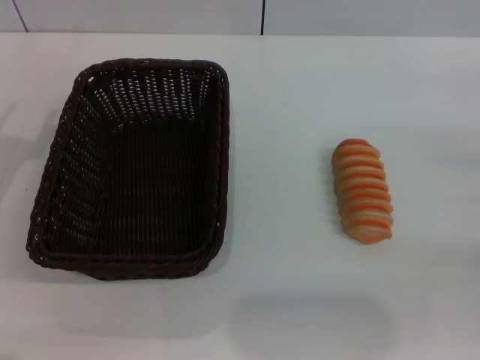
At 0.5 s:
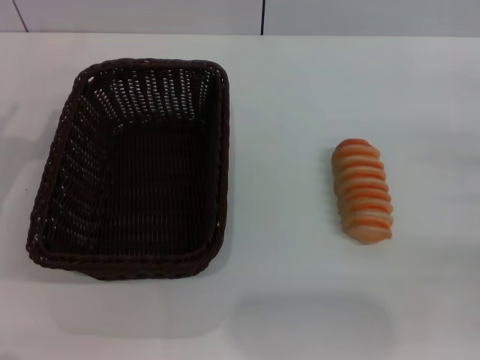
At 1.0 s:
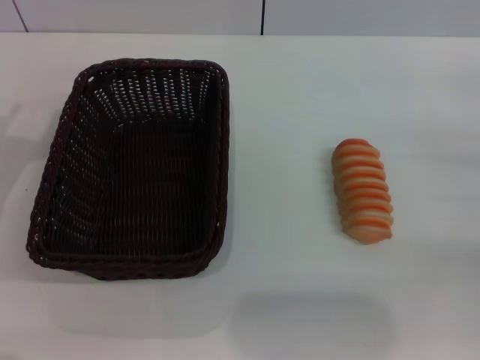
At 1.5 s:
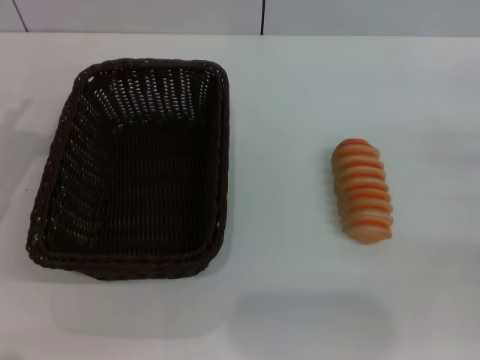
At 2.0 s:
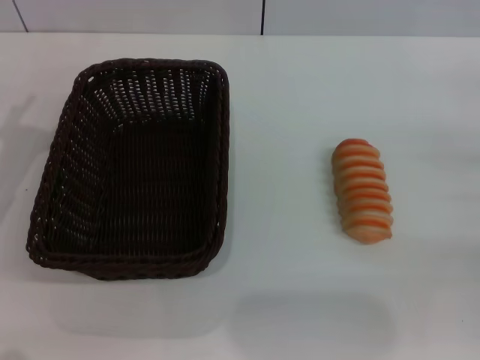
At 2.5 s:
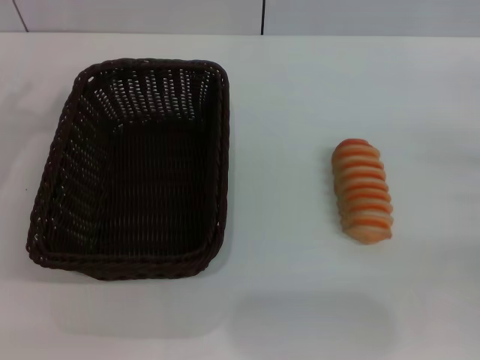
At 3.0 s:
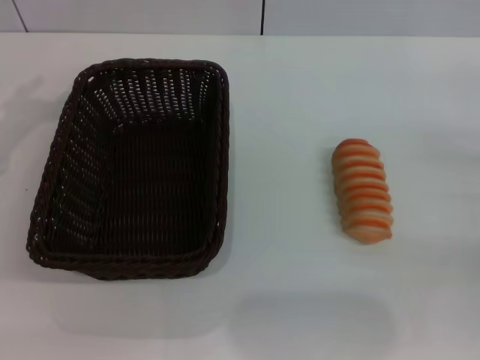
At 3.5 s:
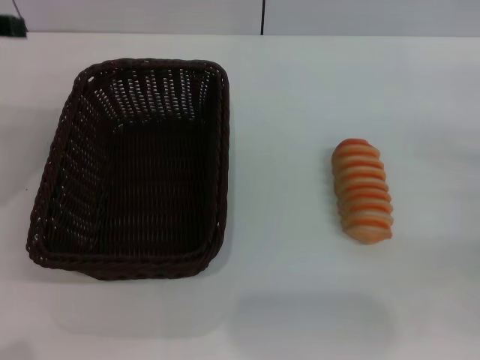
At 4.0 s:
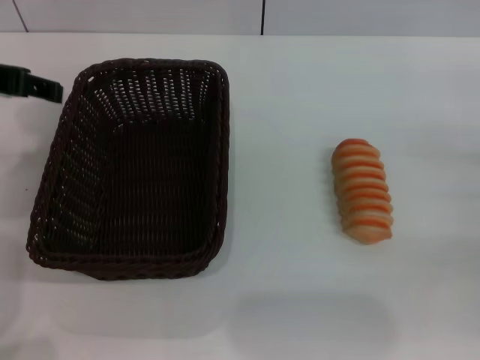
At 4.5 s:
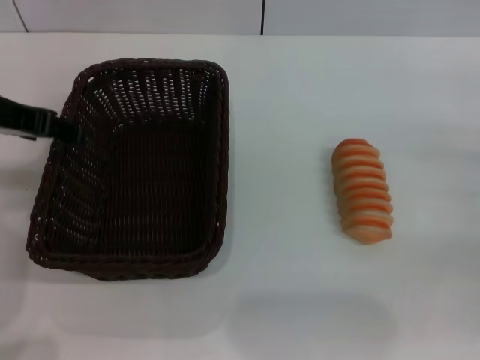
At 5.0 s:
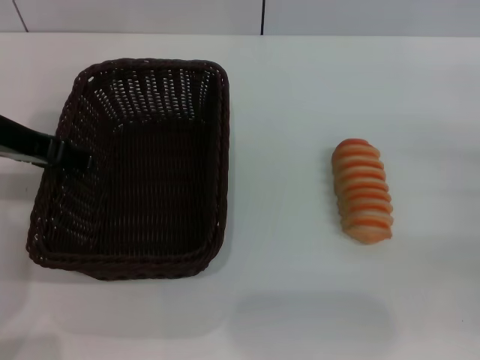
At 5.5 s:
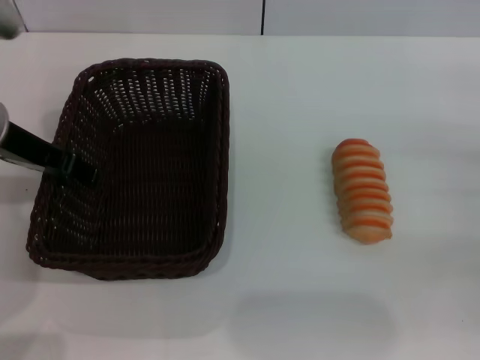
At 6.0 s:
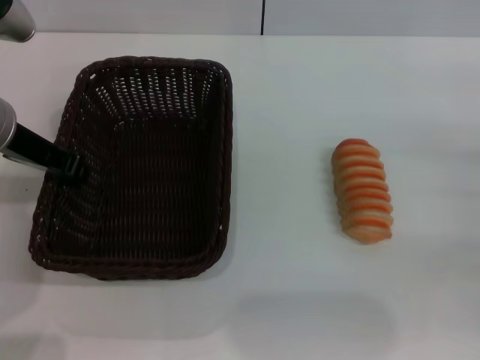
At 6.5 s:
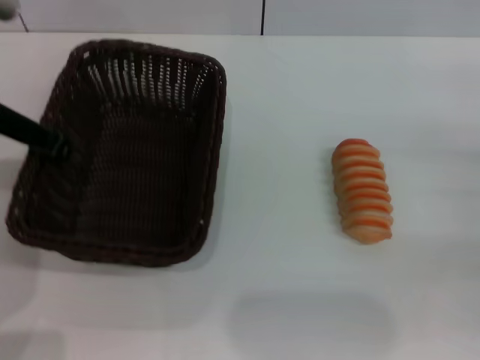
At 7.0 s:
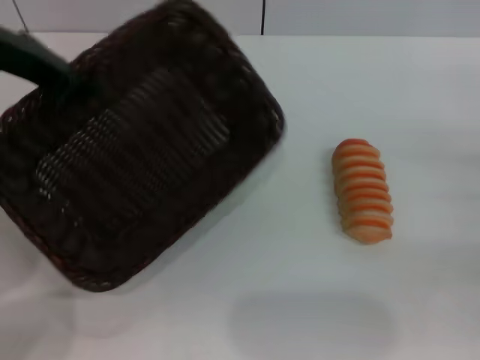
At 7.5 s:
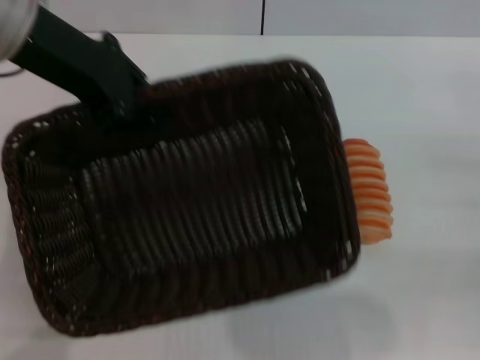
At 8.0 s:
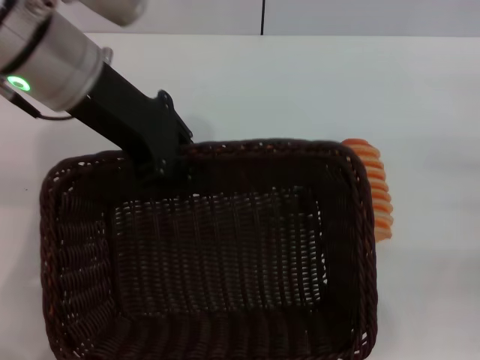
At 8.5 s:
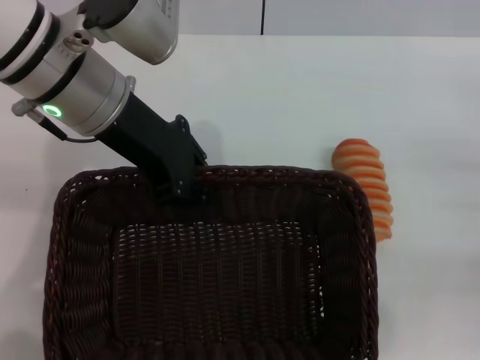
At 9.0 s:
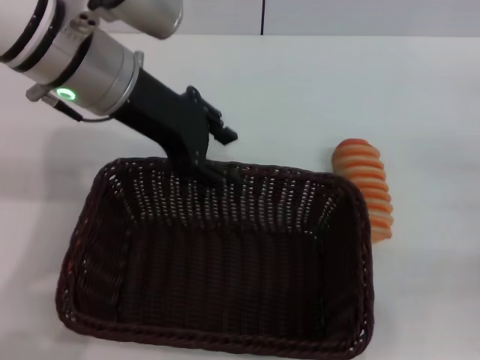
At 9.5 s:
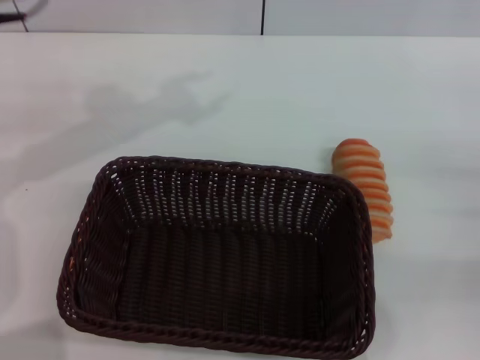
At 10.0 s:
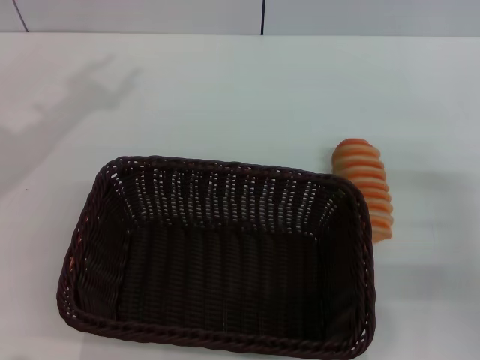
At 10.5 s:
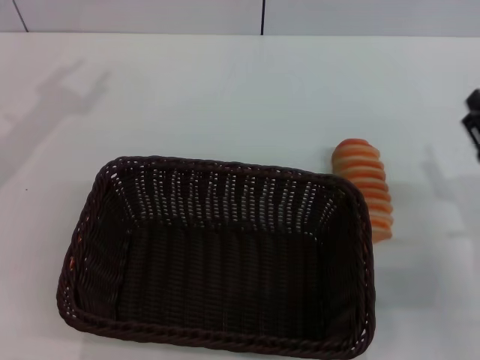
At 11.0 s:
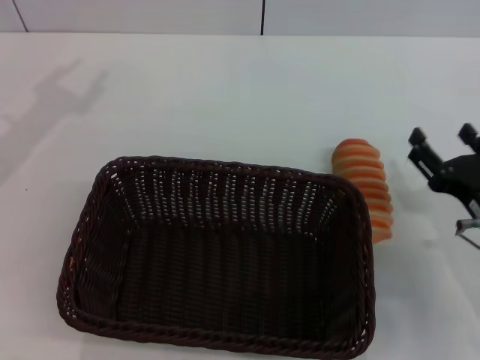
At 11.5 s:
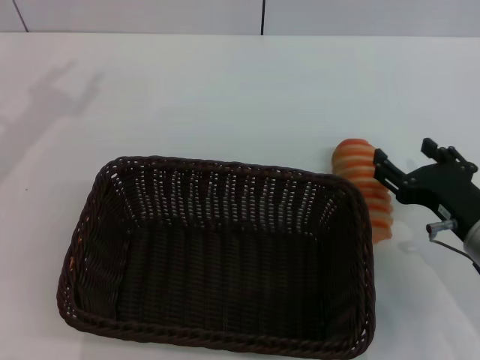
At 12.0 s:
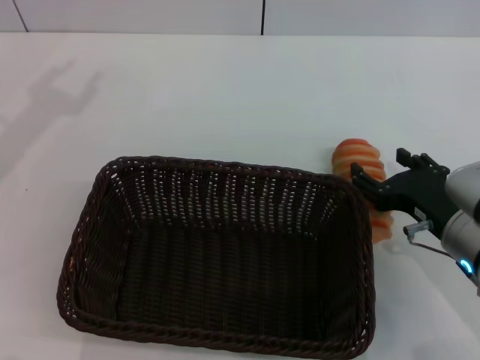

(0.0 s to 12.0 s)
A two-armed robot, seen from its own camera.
Step, 0.0 s - 6.0 s: Grasp the basket with the left gripper.
Step, 6.5 s - 9.0 s: Place the basket in the center of the table with the left gripper.
2.0 s - 4.0 s: The left gripper travels upward by roughly 15 cm.
4.0 s - 6.0 s: The left gripper travels downward by some 5 cm, and closes up.
6.0 s - 8.0 s: The left gripper travels to the right and upward by some 10 cm.
8.0 s - 10.0 s: The left gripper is displaced to the left by some 15 cm, and opens. The right gripper travels to the left by roughly 5 cm.
10.0 s - 12.0 s: The right gripper is displaced to the left by some 10 cm.

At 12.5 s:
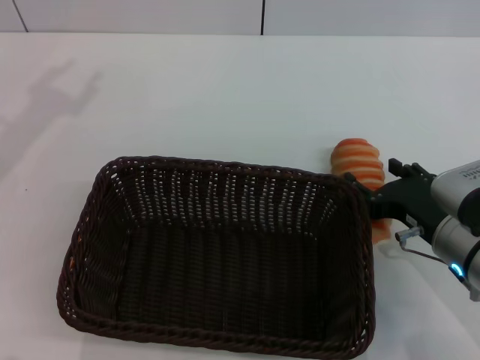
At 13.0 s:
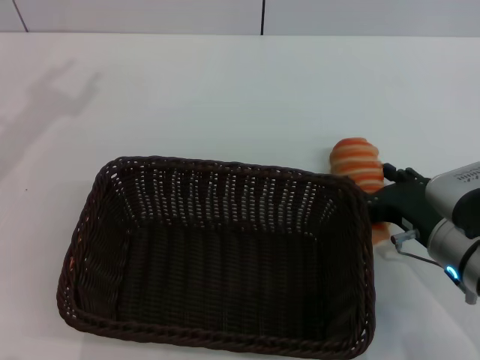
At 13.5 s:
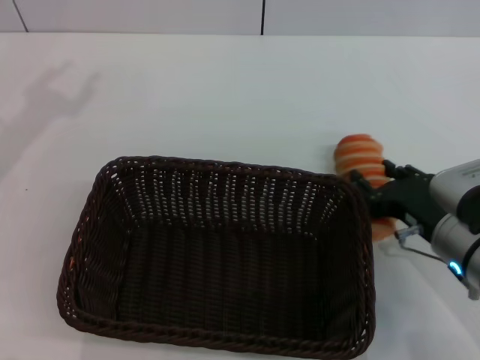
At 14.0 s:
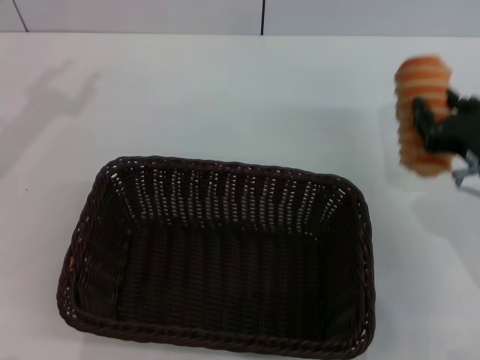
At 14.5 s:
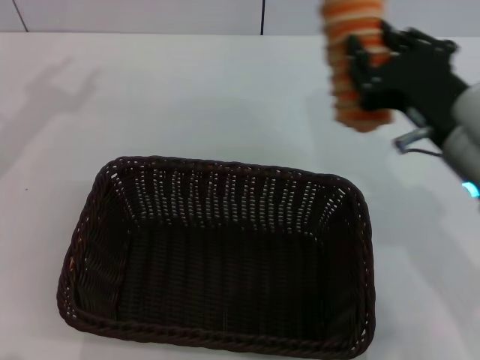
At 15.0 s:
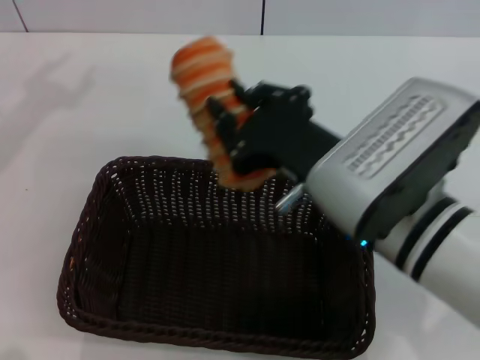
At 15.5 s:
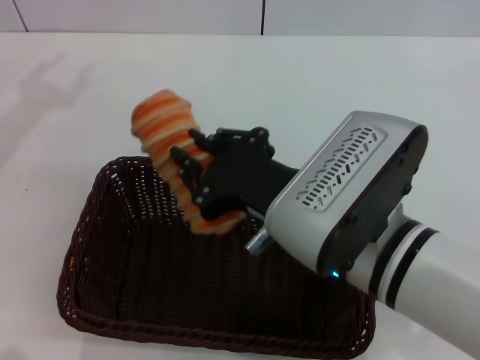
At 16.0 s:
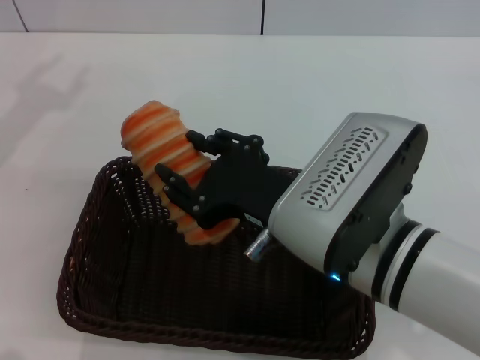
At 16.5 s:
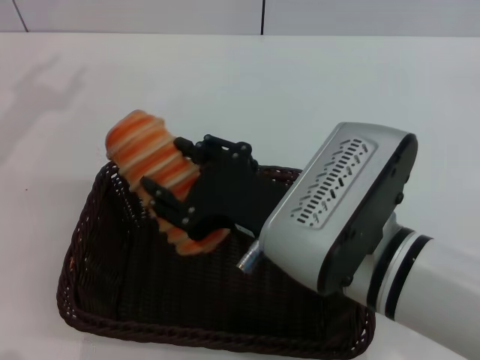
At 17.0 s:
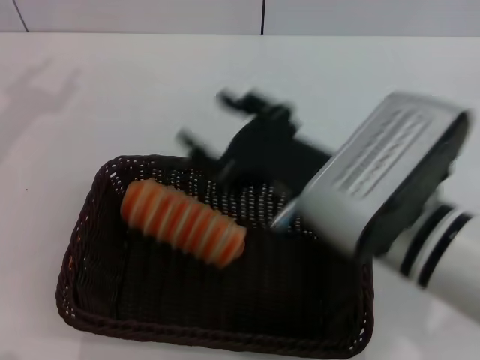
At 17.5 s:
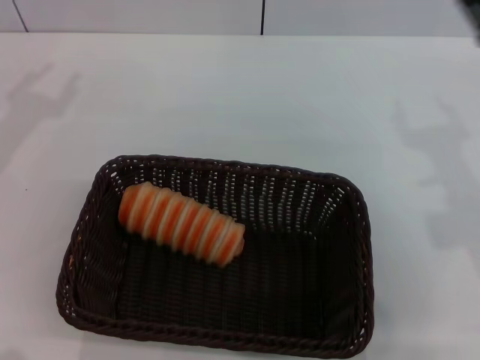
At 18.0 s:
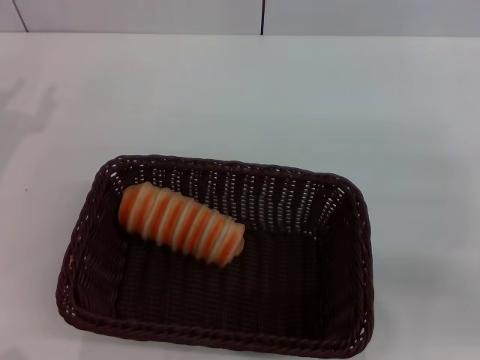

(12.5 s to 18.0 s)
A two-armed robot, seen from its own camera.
Step, 13.5 s - 17.0 s: Place the long bread in the basket with right gripper.
12.5 s - 14.5 s: The right gripper heads upward, covering approximately 10 cm, and closes.
14.5 s - 16.0 s: The right gripper is displaced to the left by some 10 cm.
16.0 s - 18.0 s: The left gripper goes roughly 10 cm downward; the right gripper travels to the right by approximately 25 cm, and opens up.
